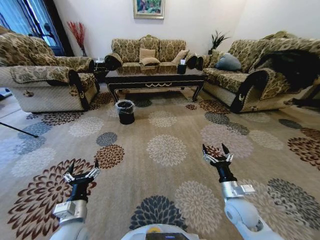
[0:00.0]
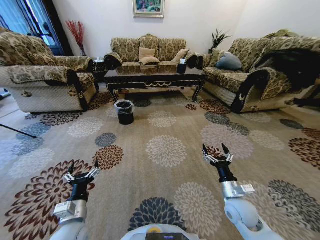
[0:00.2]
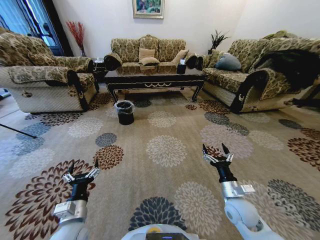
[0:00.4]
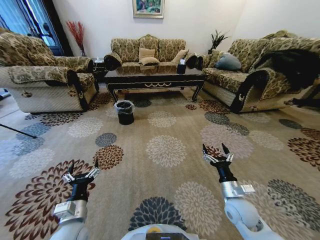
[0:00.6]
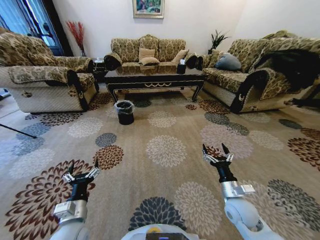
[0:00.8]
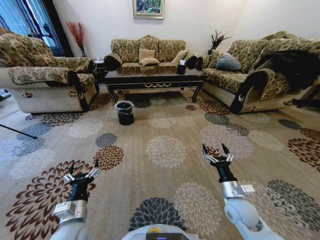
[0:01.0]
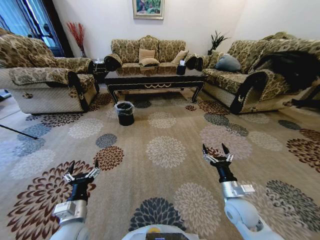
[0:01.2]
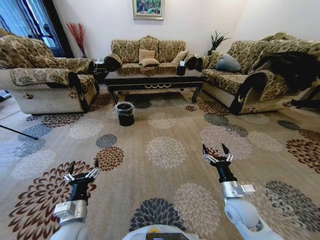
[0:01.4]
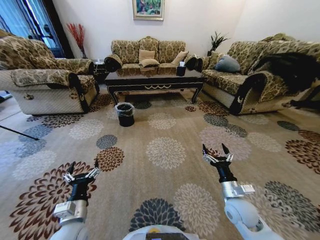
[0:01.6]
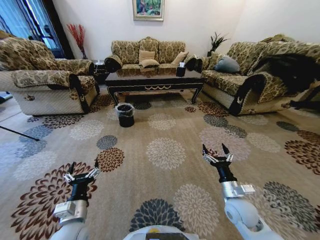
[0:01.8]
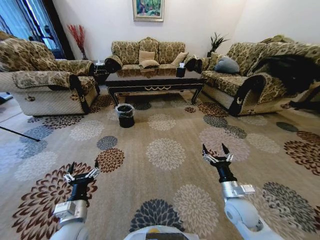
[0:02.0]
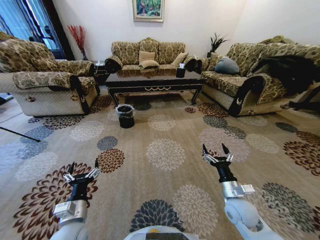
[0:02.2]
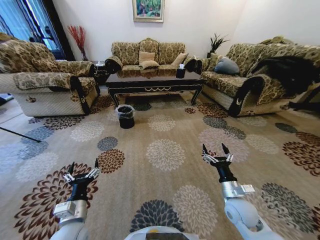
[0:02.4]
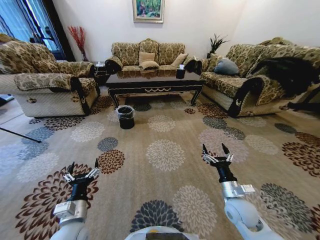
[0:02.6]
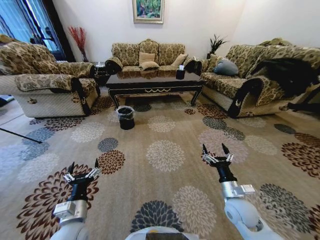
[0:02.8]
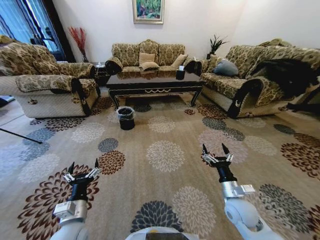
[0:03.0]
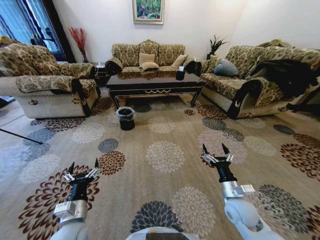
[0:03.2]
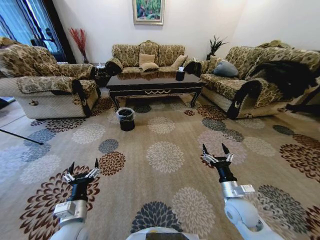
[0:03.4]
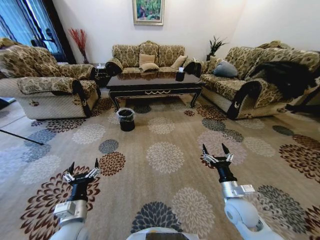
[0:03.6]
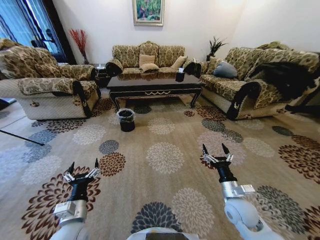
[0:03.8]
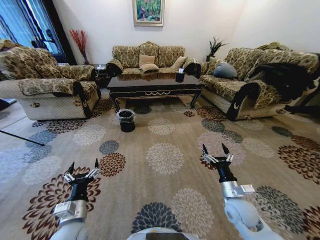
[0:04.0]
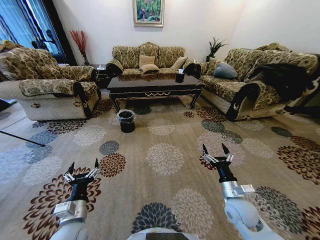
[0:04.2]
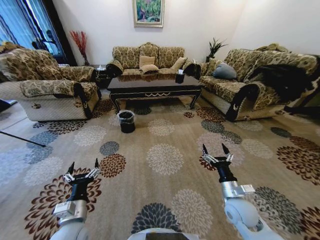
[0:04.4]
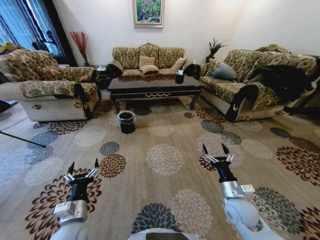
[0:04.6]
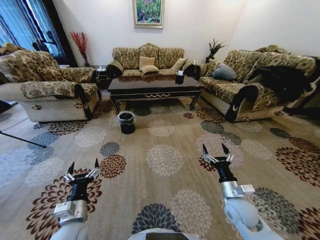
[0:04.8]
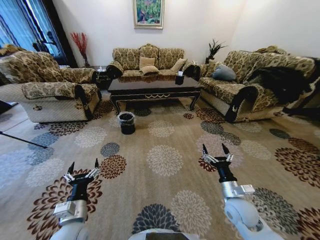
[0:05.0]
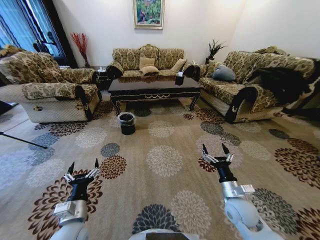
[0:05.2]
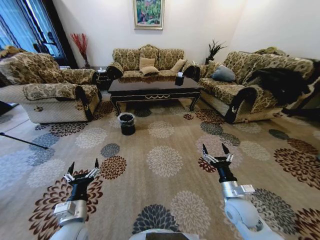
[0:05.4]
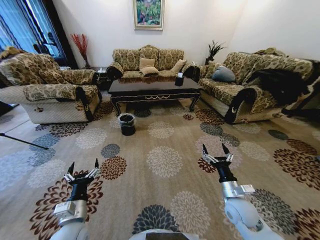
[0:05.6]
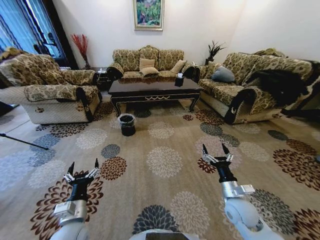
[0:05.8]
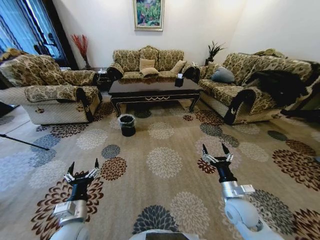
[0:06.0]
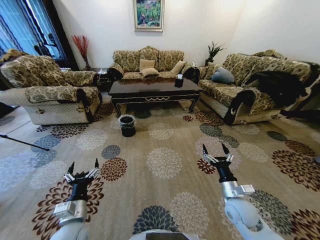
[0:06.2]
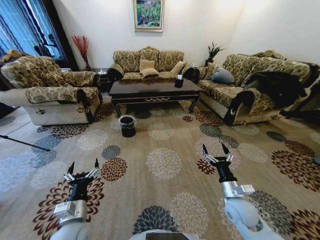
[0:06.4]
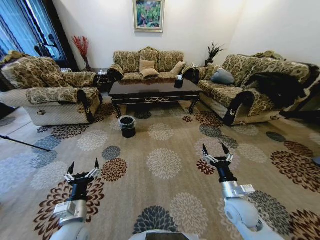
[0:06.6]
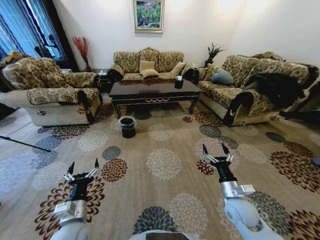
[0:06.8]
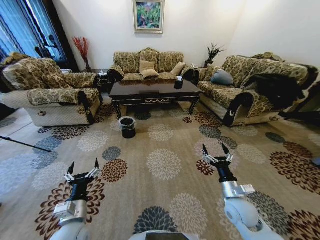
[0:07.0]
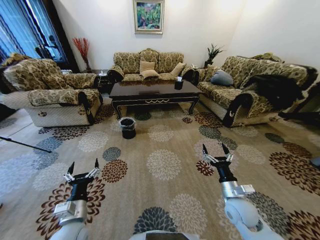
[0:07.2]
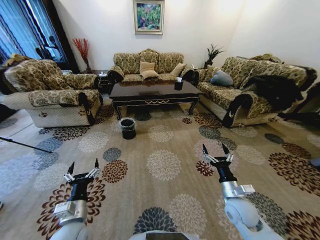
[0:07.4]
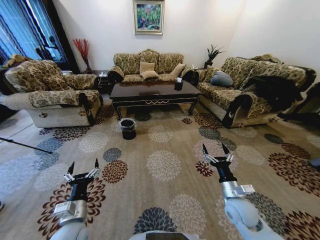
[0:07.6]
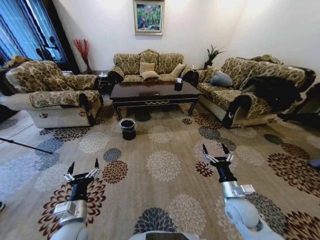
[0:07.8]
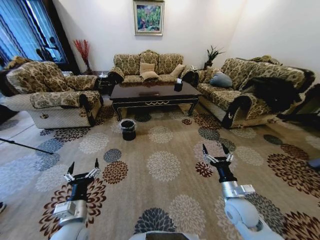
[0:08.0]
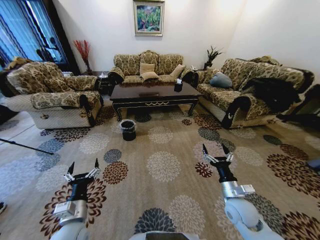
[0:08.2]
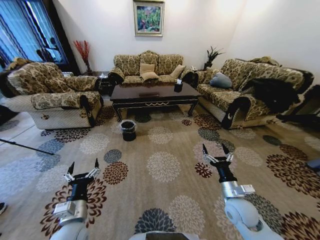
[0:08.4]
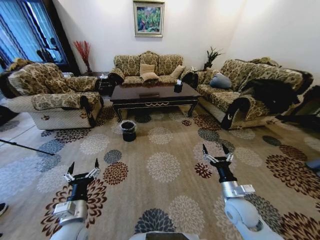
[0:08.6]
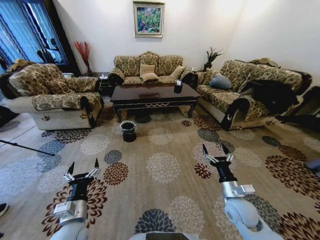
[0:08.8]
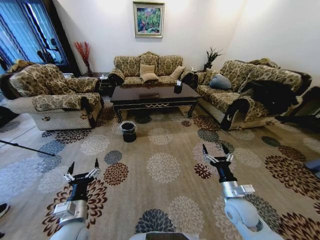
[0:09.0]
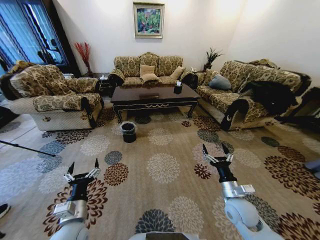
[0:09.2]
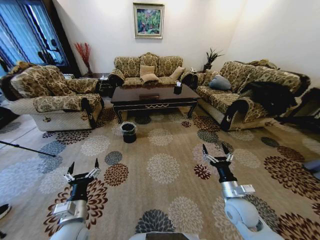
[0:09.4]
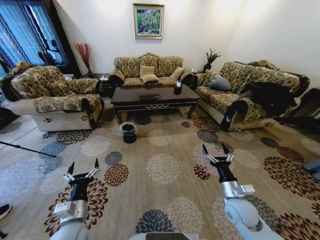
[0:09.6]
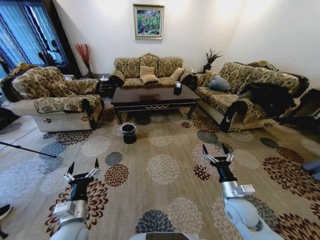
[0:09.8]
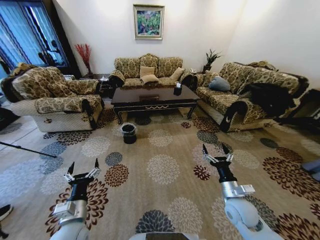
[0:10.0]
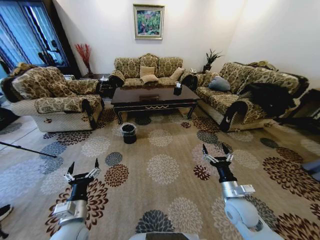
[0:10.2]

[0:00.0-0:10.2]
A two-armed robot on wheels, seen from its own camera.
Task of the whole recording: Move to the front of the table and pick up the trash from the floor, then place it into the trash bin.
0:00.0 to 0:01.4: Both grippers stay put.
0:08.8 to 0:10.2: Both grippers stay put.
